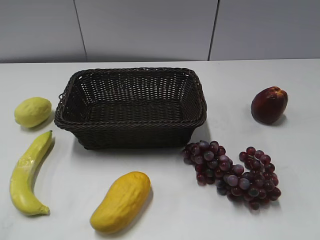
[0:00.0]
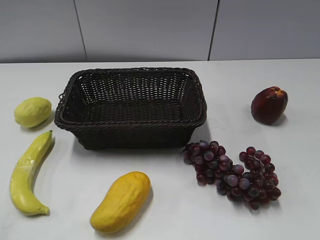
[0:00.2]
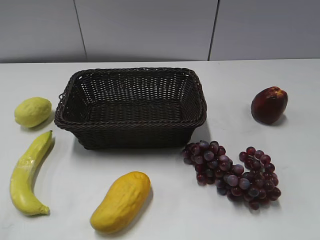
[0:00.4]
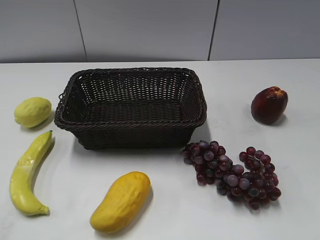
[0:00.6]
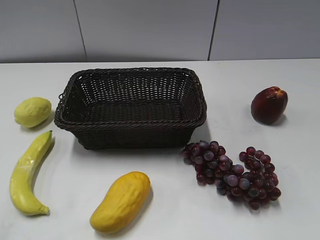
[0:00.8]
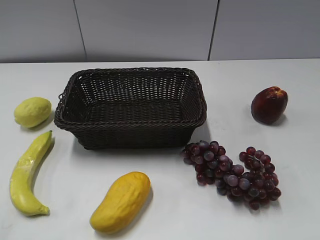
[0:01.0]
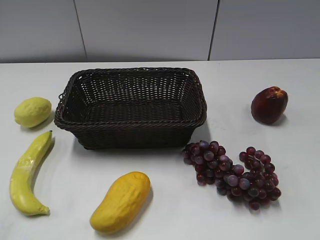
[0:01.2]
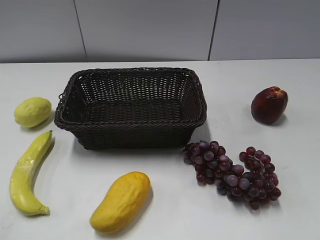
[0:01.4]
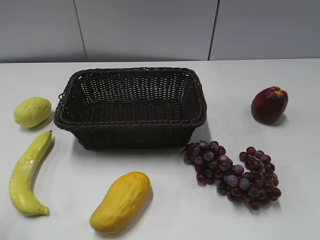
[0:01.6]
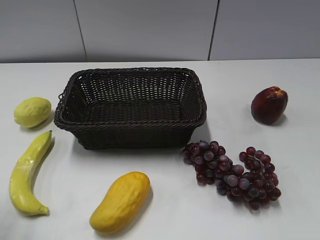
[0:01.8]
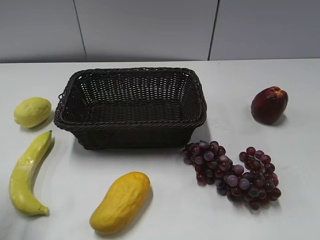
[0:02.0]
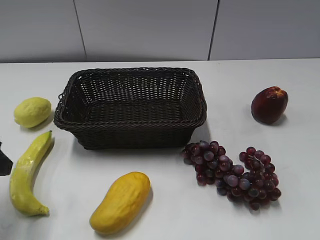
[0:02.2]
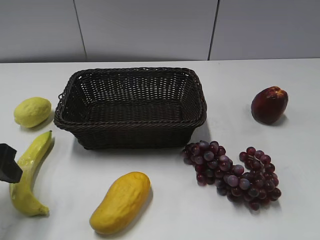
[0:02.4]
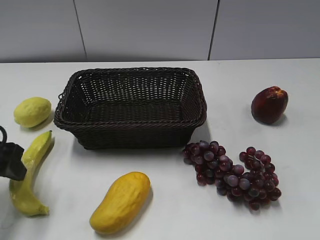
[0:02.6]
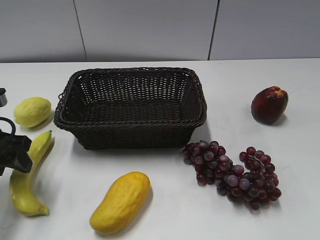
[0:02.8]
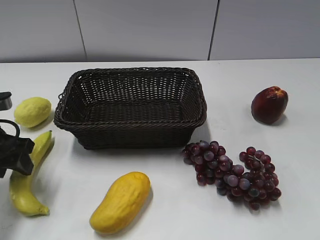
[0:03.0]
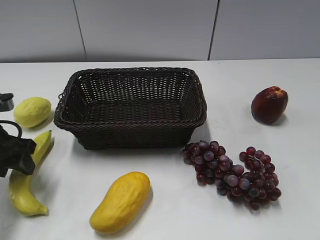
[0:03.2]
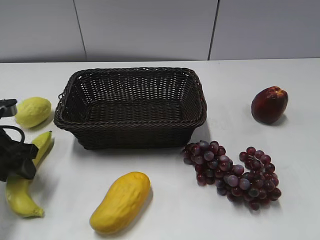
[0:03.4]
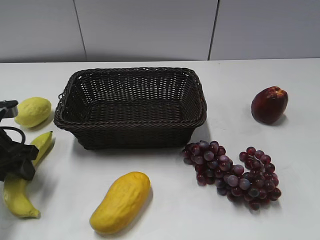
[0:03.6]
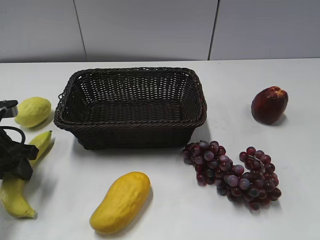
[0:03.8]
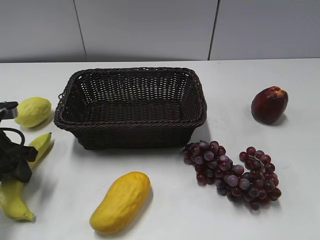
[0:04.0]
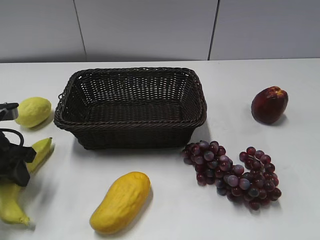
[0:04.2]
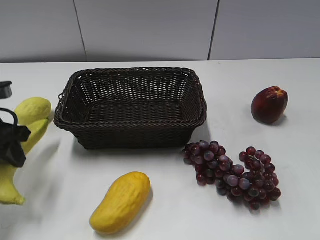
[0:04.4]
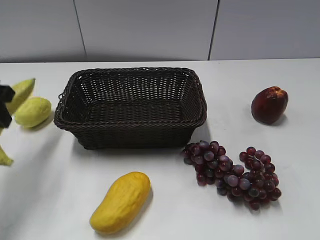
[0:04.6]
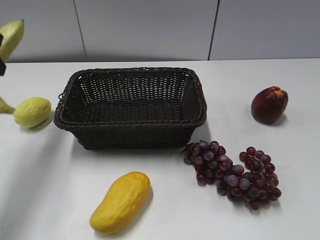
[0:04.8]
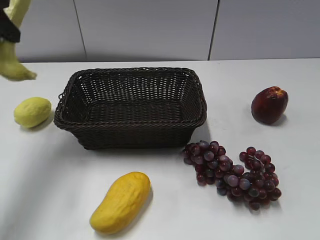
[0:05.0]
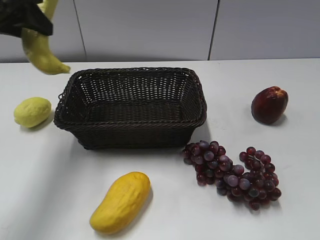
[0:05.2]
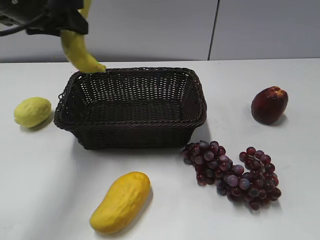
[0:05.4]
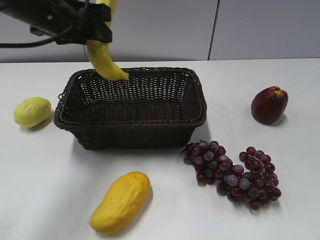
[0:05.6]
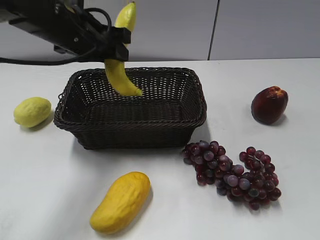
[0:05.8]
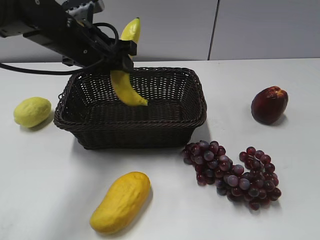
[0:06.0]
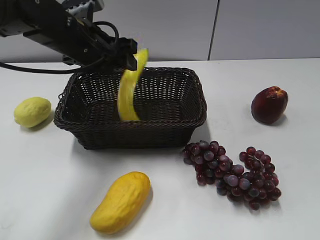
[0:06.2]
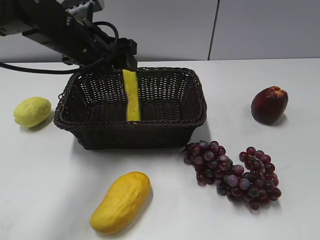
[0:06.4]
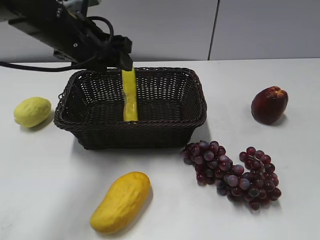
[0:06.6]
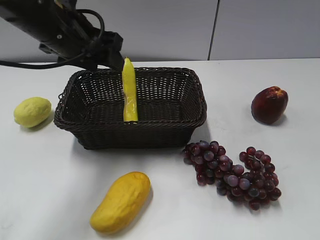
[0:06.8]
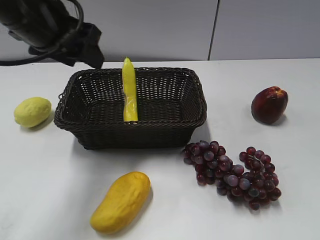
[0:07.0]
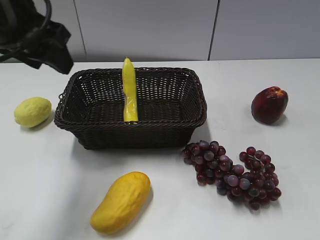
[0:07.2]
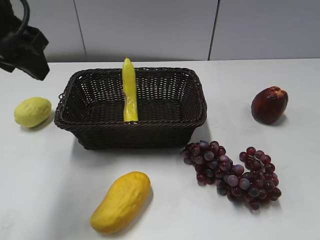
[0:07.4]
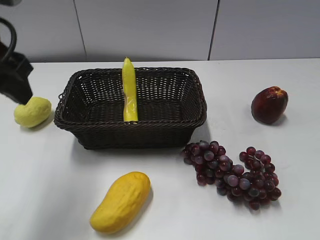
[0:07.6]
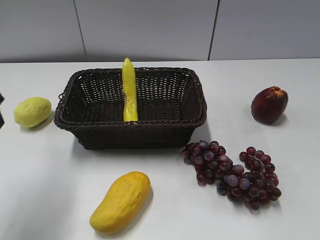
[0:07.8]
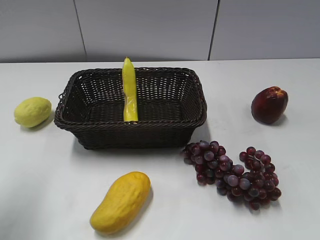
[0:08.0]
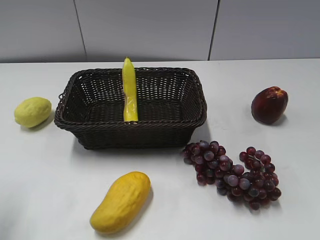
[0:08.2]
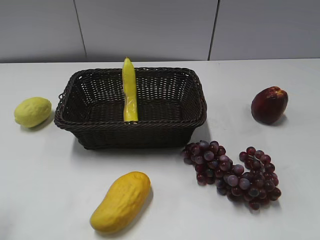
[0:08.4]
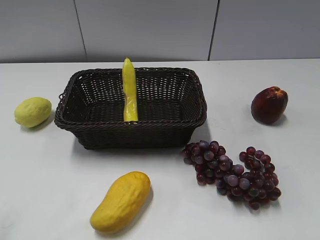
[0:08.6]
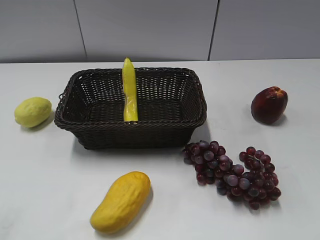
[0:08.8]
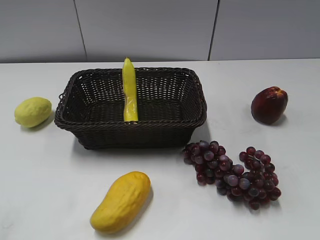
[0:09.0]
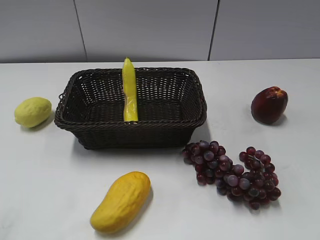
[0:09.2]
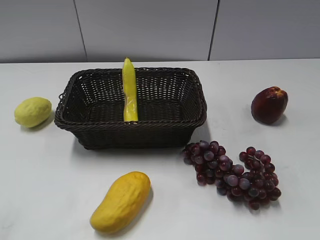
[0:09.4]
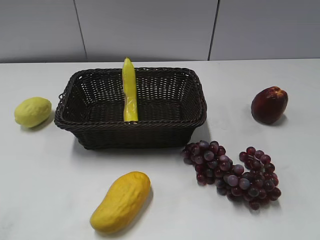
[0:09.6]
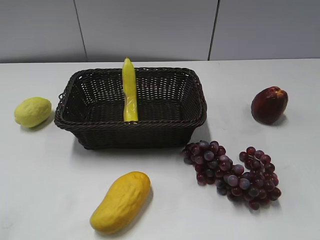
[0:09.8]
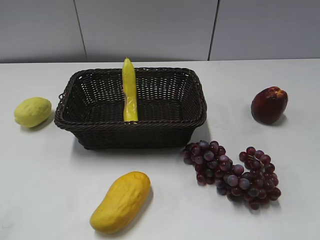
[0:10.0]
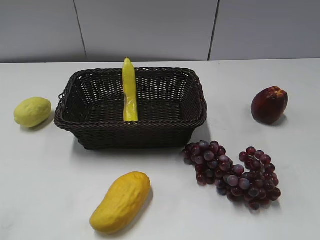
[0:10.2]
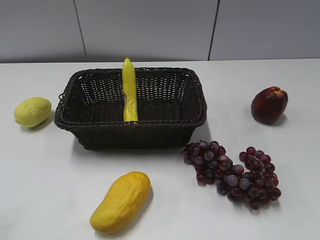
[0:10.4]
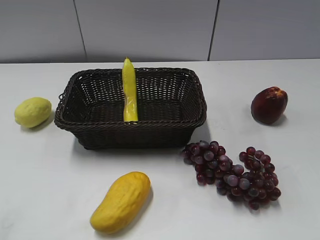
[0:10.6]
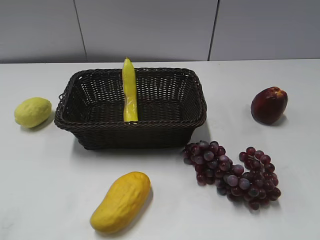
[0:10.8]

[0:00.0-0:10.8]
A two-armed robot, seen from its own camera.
Step, 0:02.2 to 0:03.6: Grasp the banana with left gripper.
Step, 0:04.0 to 0:06.2: Place the banana in the basket with left gripper.
0:01.6 to 0:03.0: The left gripper goes roughly 25 cm forward and downward.
0:03.0 to 0:04.6: The left gripper moves upward, approximately 5 cm, and closes its fingers.
0:04.6 to 0:06.2: The left gripper shifts approximately 20 cm to the right and forward, and opens up.
0:06.2 to 0:07.8: The left gripper is displaced backward, to the left and upward by roughly 20 cm.
0:07.8 to 0:09.2: The left gripper moves backward, approximately 20 cm.
